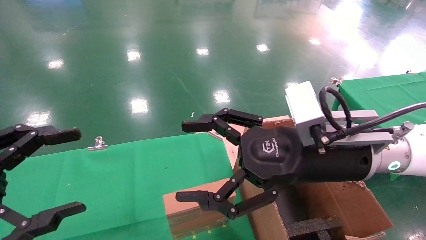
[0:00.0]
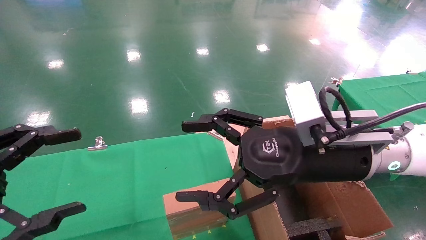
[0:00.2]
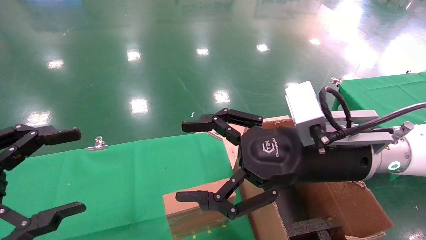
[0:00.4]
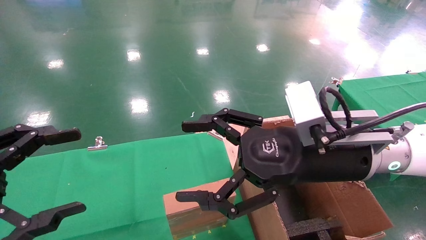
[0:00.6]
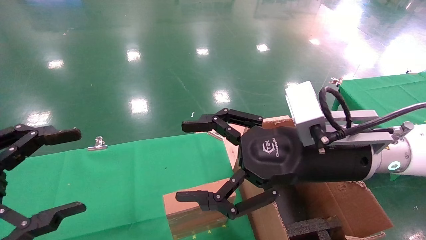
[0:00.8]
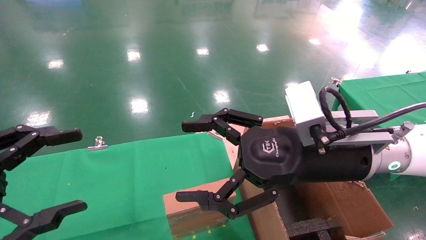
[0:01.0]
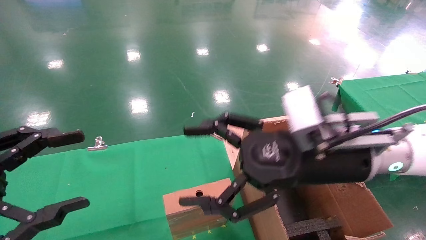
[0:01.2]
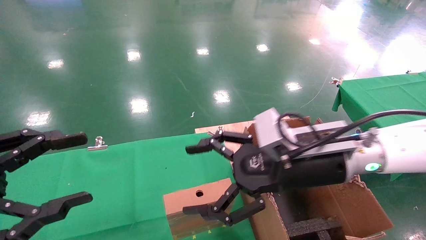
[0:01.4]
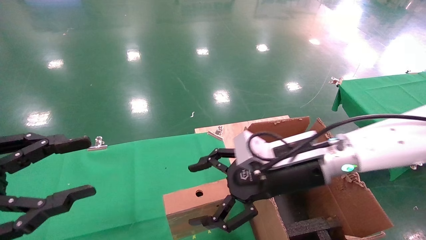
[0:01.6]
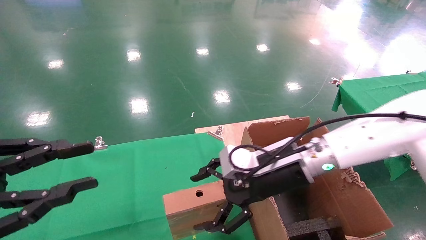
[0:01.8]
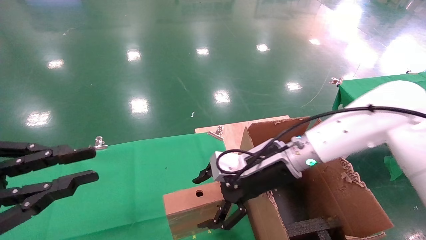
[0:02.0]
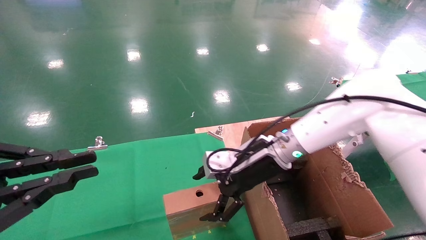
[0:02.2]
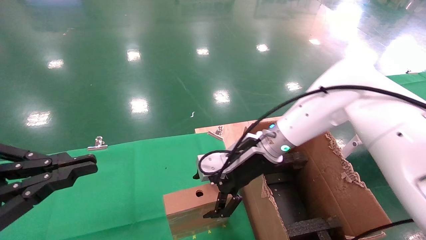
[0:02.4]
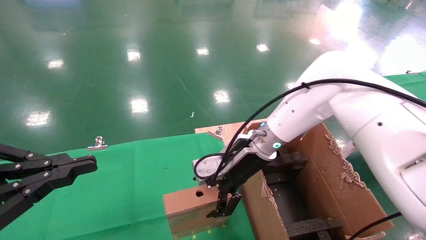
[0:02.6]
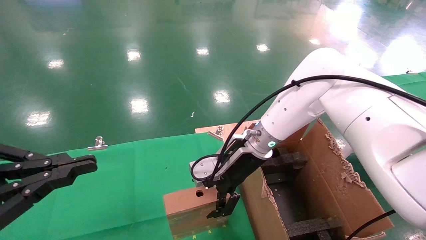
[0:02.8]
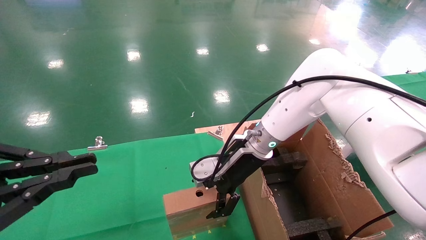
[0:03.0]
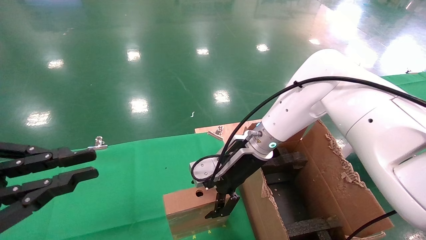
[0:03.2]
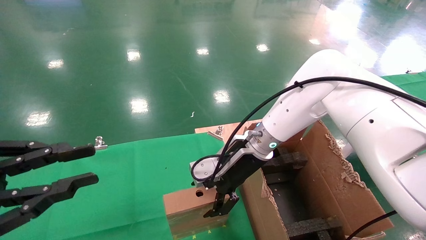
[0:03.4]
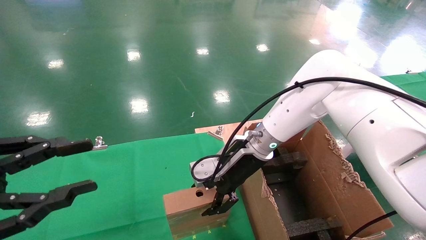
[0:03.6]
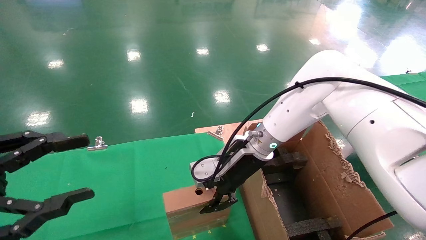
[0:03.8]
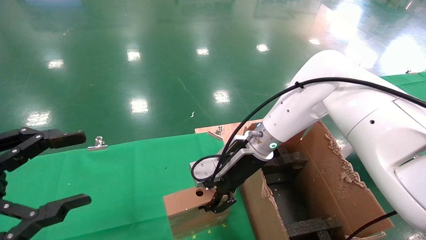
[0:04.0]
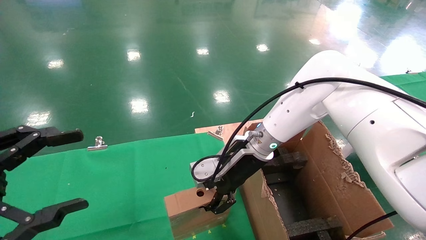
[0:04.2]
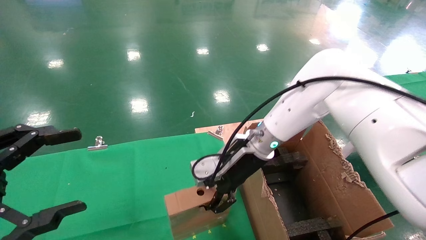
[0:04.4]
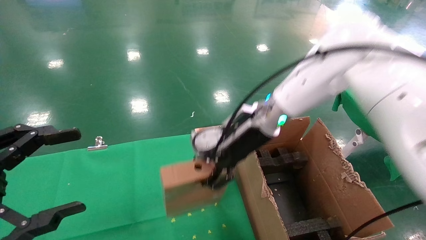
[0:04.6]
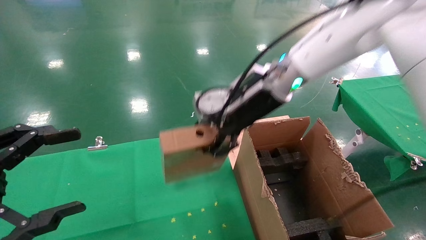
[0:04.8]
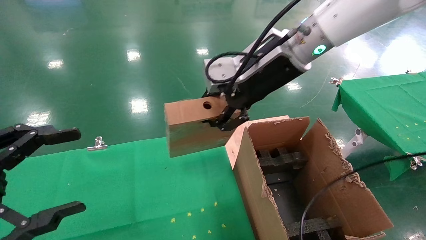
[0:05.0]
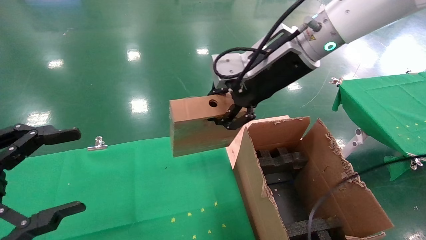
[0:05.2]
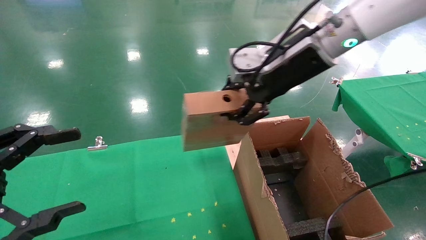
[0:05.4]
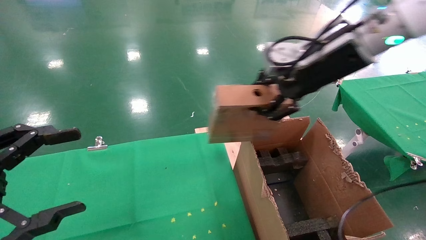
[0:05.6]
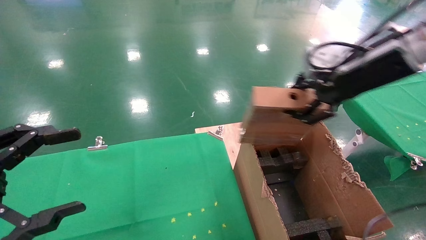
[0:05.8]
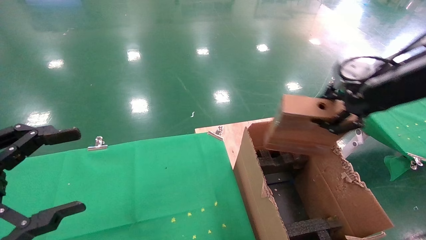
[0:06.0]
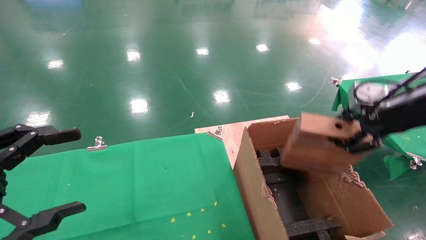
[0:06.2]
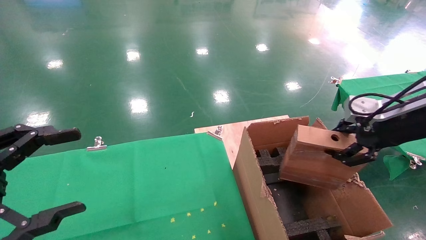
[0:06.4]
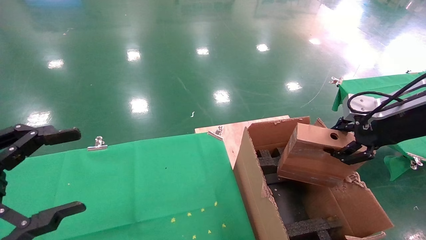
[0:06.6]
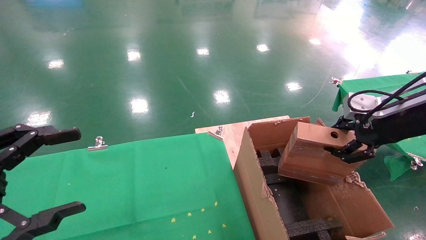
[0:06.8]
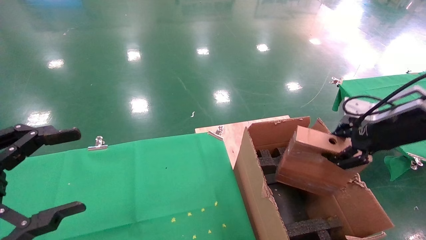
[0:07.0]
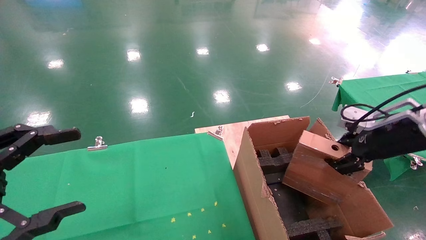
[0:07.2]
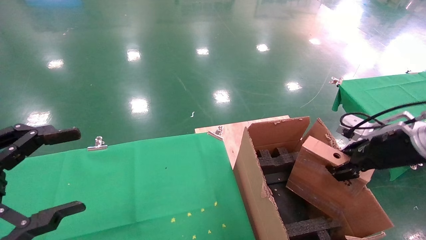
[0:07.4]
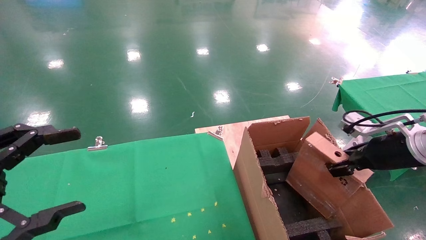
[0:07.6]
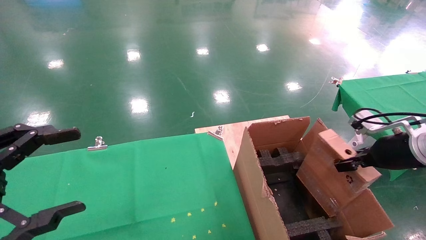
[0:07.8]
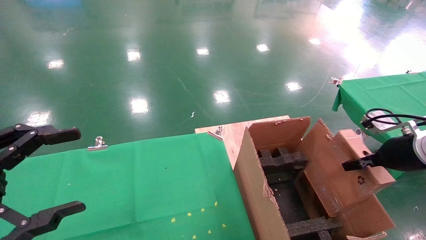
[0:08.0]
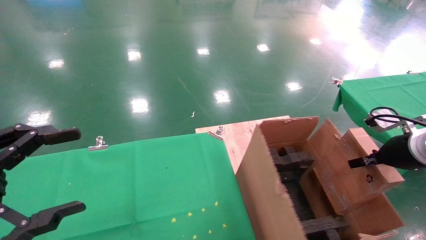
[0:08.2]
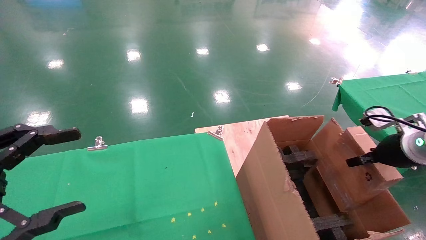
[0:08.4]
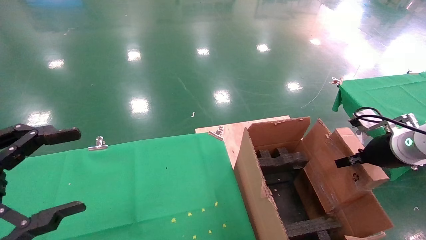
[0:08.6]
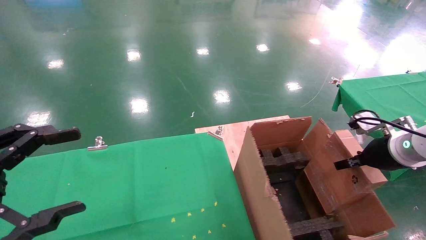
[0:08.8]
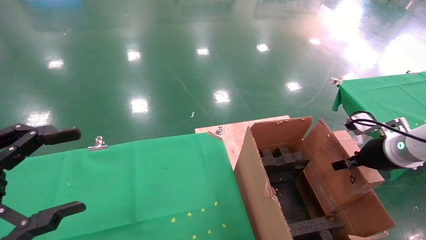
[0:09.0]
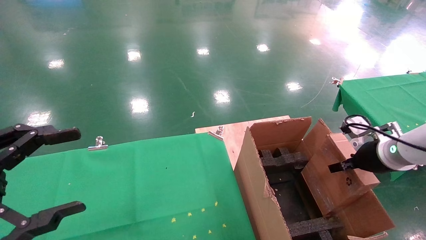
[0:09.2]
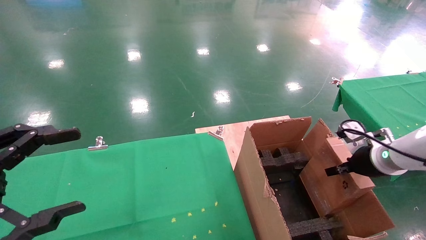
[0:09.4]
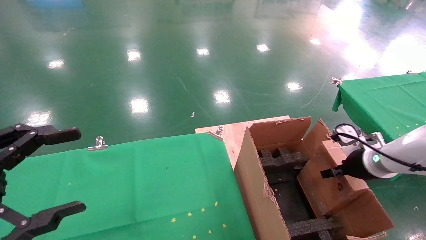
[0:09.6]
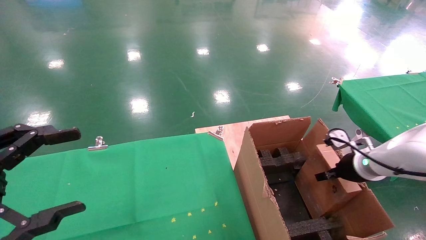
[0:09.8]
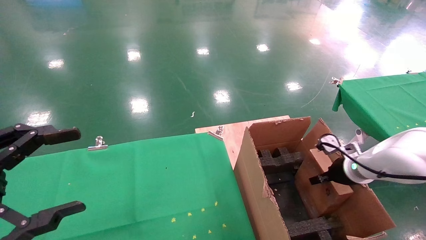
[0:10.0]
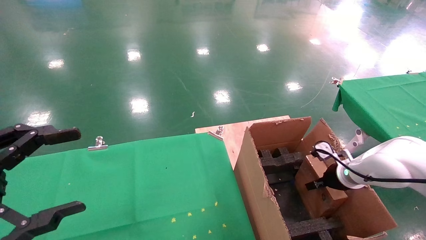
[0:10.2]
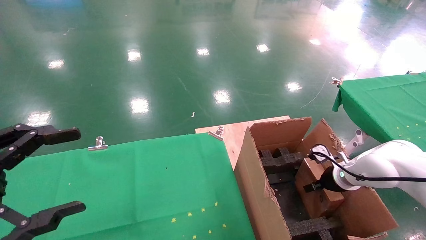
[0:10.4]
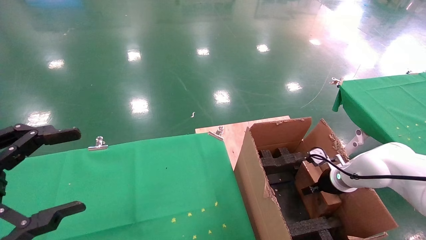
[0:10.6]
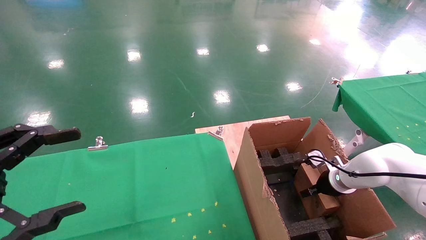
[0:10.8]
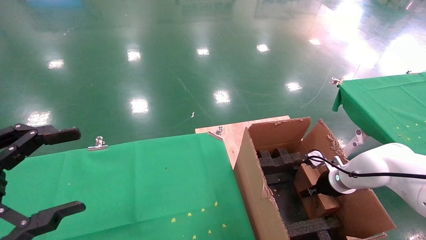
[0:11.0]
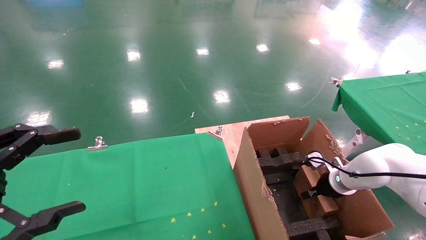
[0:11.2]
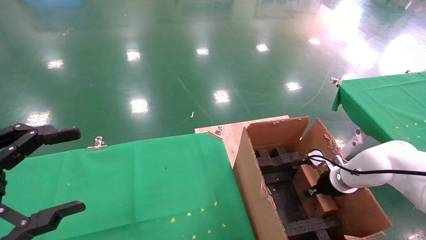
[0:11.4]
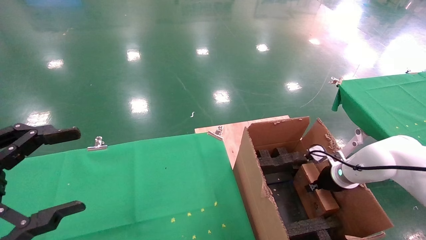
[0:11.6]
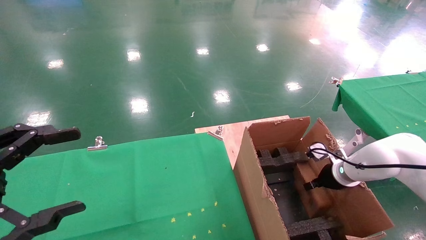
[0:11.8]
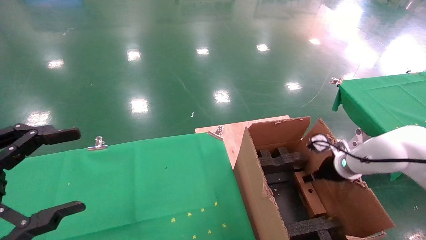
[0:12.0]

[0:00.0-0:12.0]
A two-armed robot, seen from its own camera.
Task of the whole recording: using a robotic arm to pick up a cardboard box and palace it the carton.
Step, 0:01.2 to 0:03.8: Pick up the mouse and the power cord paper box.
0:00.0 to 0:01.6: The right gripper travels forward and downward by roughly 10 cm.
0:01.6 to 0:03.0: The right gripper shifts approximately 10 cm forward and to the left. The left gripper closes its fingers.
0:03.0 to 0:04.4: The right gripper closes its fingers. Meanwhile the left gripper opens up.
0:04.4 to 0:06.0: The right gripper travels to the right, upward and backward by approximately 30 cm.
0:06.0 to 0:07.6: The right gripper travels downward and to the right by approximately 15 cm.
0:09.0 to 0:10.4: The right gripper shifts about 15 cm downward and forward.
0:10.4 to 0:12.0: The right gripper is displaced upward by about 5 cm, and opens up.

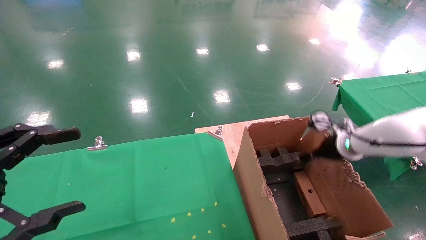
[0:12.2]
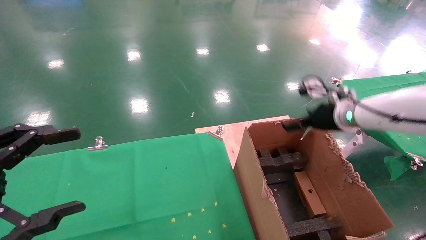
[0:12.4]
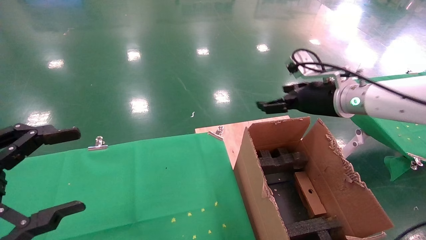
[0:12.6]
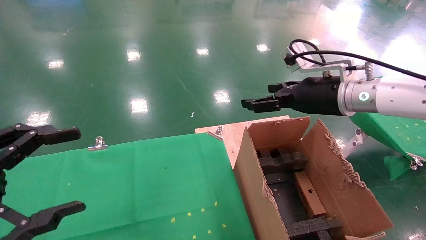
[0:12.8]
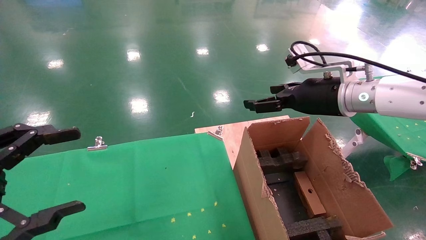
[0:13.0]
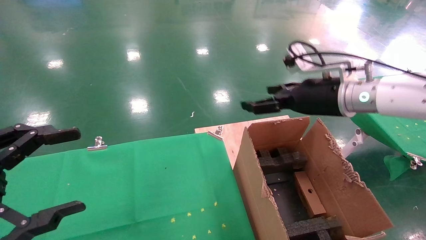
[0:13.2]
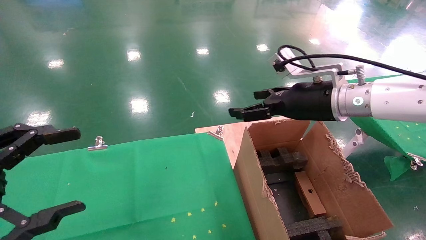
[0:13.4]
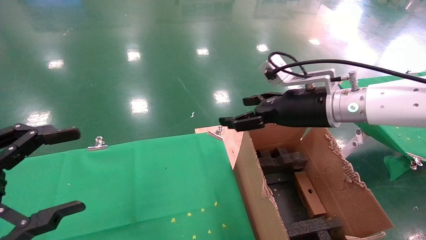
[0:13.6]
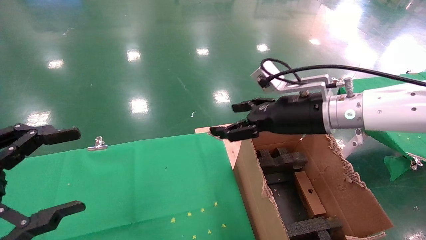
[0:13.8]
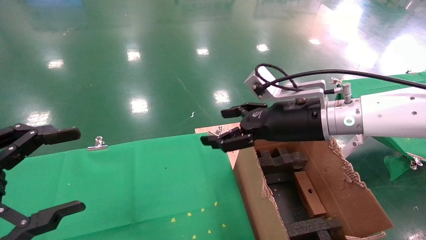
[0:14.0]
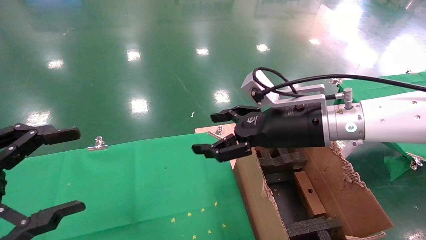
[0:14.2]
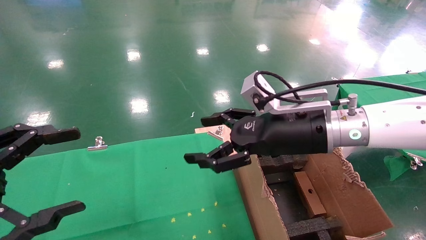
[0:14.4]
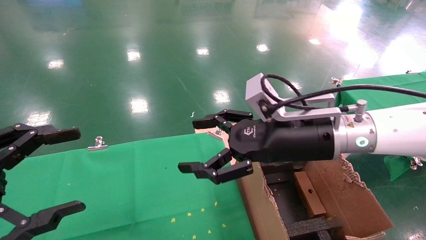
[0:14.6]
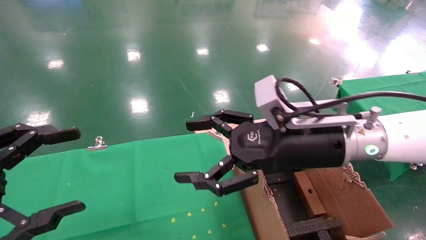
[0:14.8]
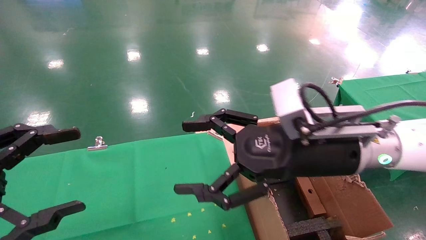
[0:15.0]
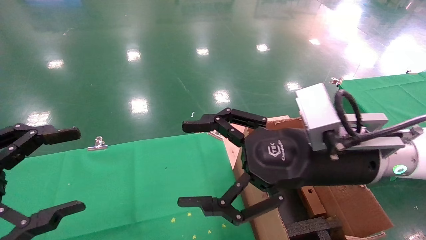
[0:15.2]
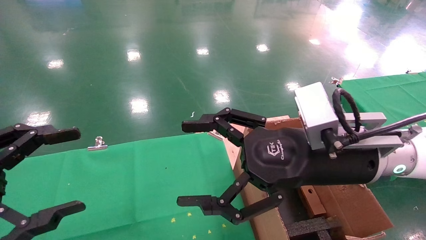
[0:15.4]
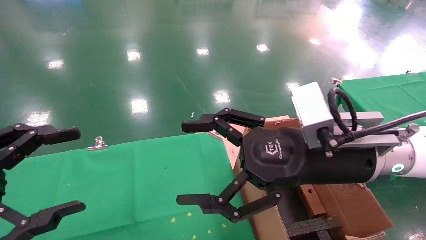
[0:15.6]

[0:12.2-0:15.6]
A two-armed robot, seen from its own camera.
Task of the whole recording: using a robotic arm to pick up a cardboard box and palace it the carton.
0:12.2 to 0:13.8: The right gripper travels to the left, upward and backward by about 20 cm.
0:13.8 to 0:15.6: The right gripper shifts about 10 cm backward.
